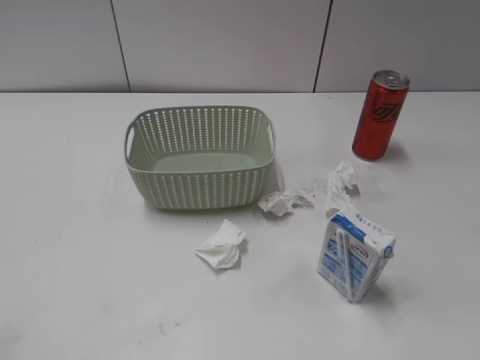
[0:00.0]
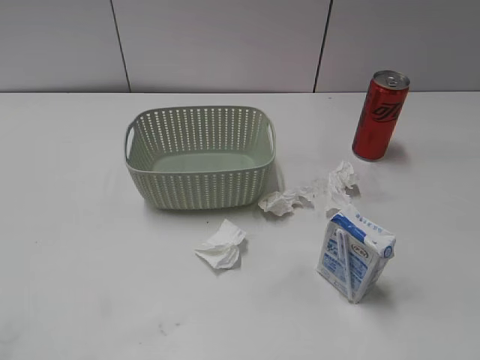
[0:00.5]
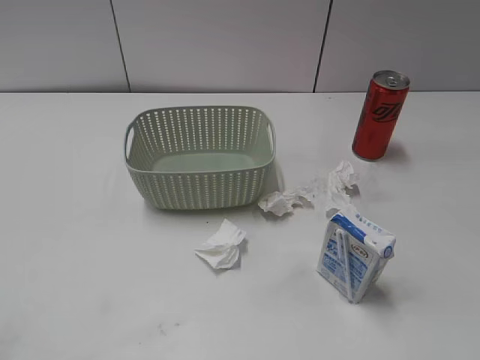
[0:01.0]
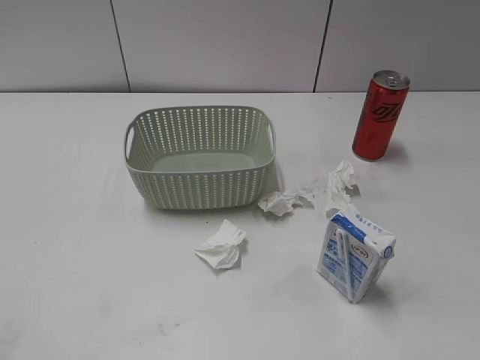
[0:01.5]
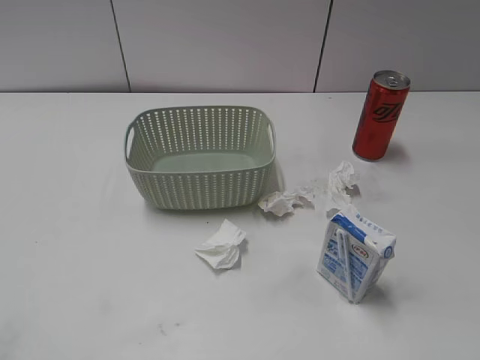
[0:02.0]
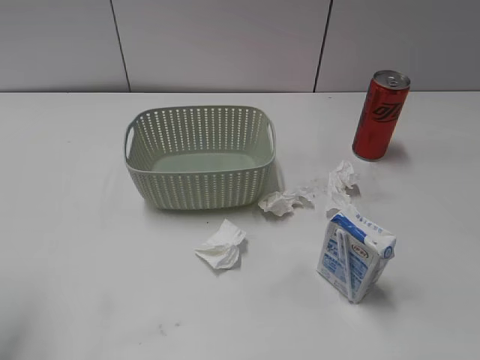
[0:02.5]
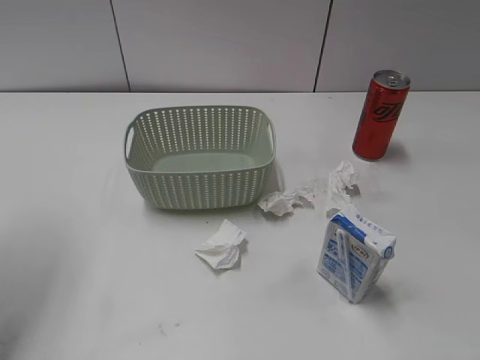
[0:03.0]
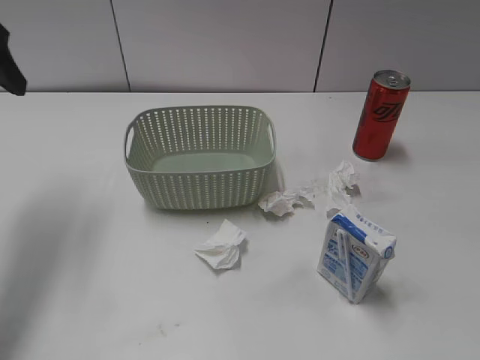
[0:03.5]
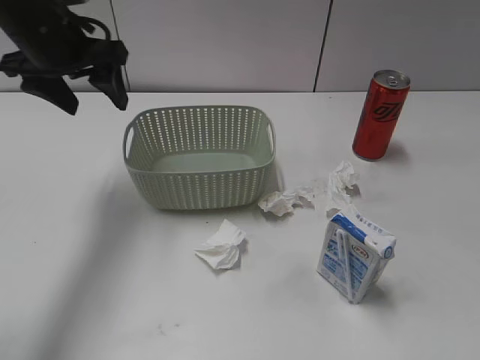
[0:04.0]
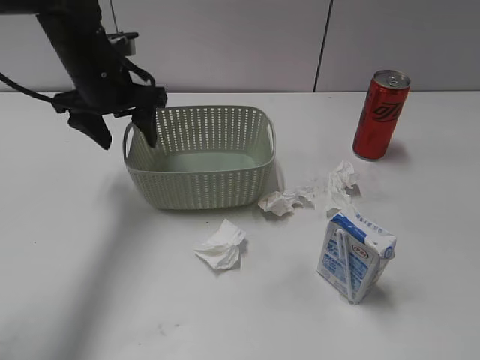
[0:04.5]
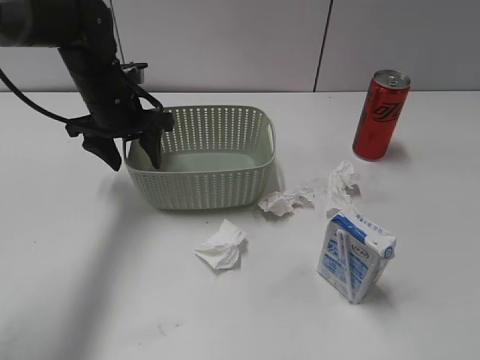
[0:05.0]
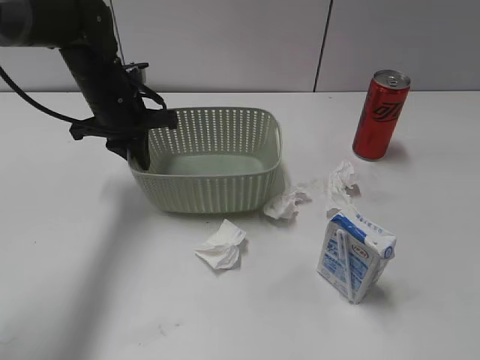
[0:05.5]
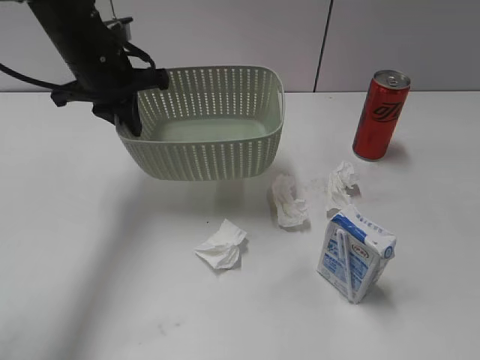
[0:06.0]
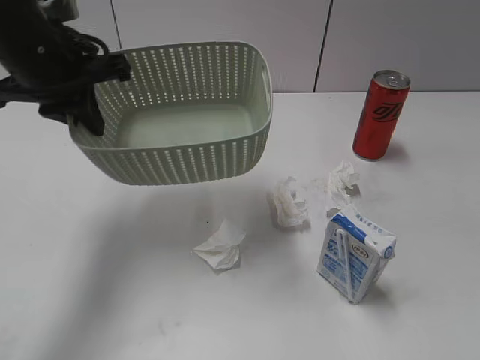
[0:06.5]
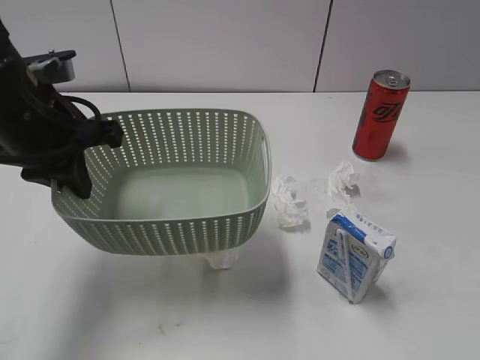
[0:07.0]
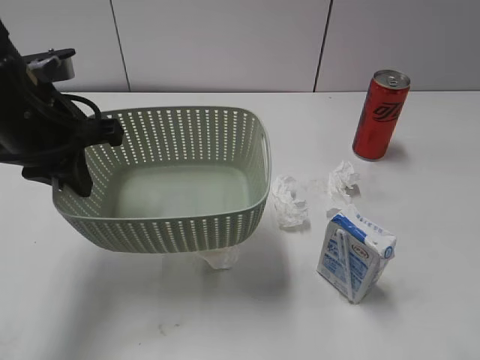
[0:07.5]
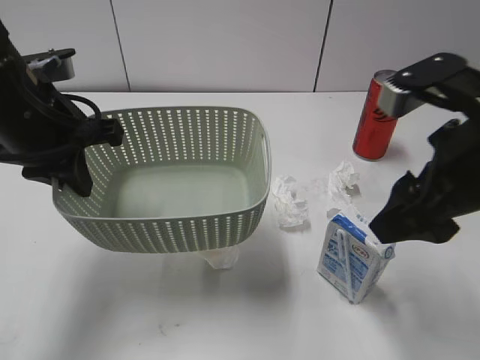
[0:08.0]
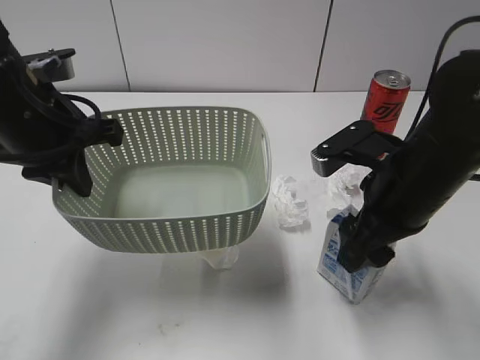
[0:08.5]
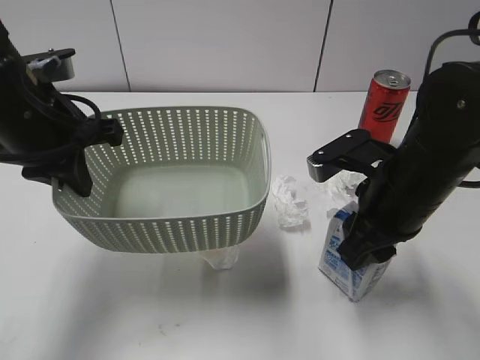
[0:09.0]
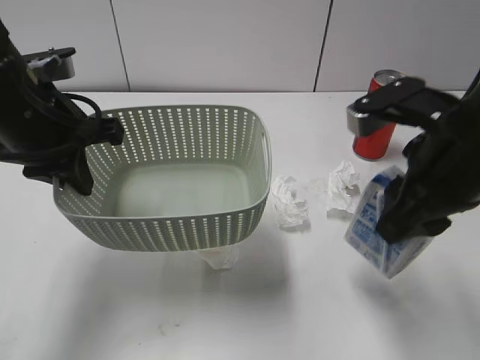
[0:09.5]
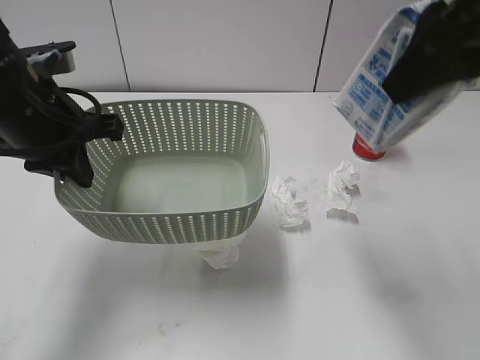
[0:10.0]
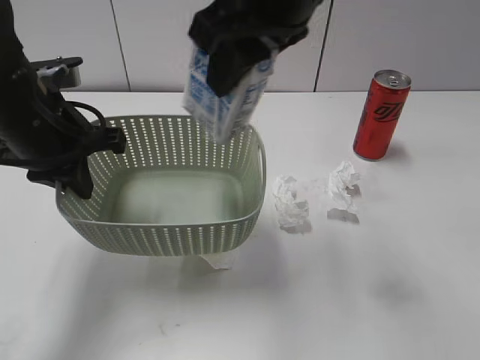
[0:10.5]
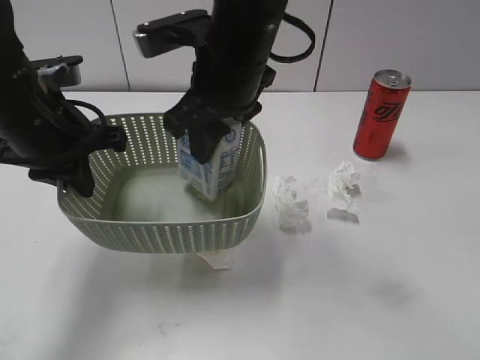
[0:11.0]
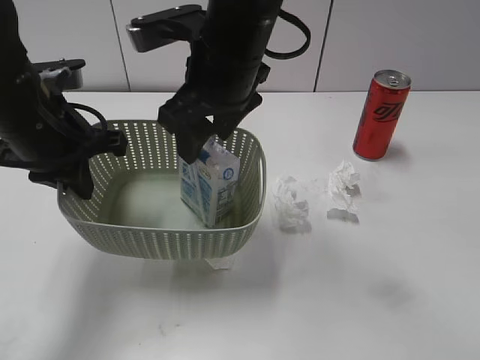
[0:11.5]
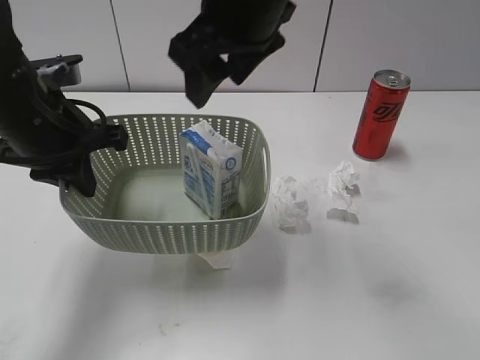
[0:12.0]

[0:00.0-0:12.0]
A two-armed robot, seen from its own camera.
Step, 0:03.5 to 0:05.0: Grasp the basket with left gripper.
Step, 0:05.5 to 0:07.0: Lift the basket with left gripper.
Step, 0:07.5 to 0:09.0: Grasp the milk with right gripper.
Step, 0:09.5 to 0:11.5: Place the milk in the basket with right gripper.
0:02.0 to 0:04.0: The left gripper travels forward by approximately 35 cm.
0:04.0 to 0:06.0: The left gripper closes.
0:06.0 to 0:08.0: The left gripper heads backward, covering some 15 cm; the right gripper heads forward and to the left, covering roughly 25 cm.
0:08.0 to 0:10.0: The right gripper shifts some 10 cm upward, and closes up.
0:10.0 to 0:12.0: The right gripper heads to the left and forward, covering some 20 cm, and opens up.

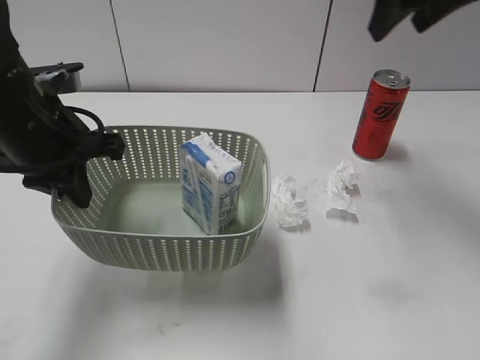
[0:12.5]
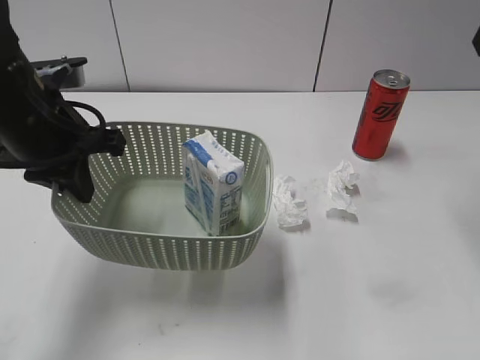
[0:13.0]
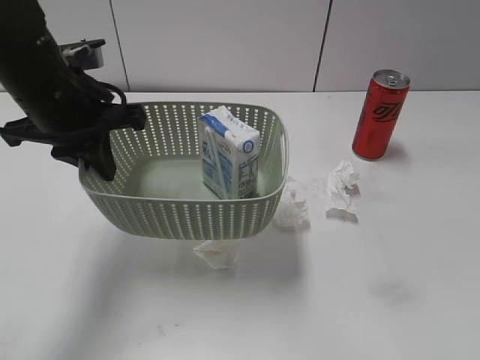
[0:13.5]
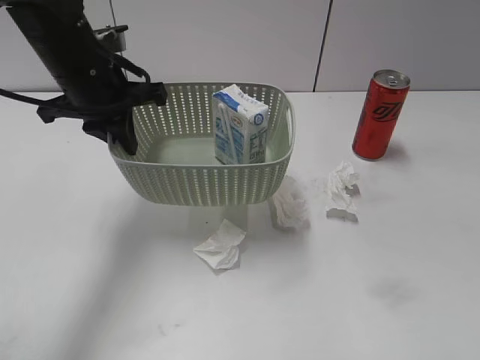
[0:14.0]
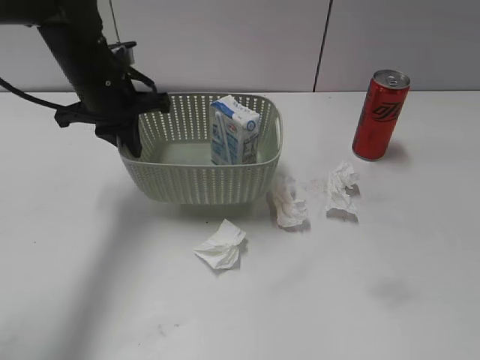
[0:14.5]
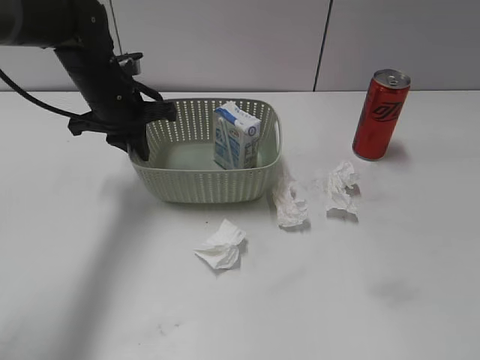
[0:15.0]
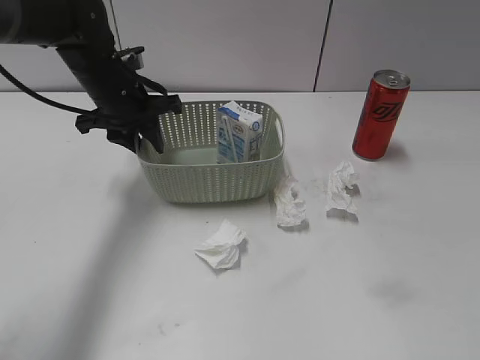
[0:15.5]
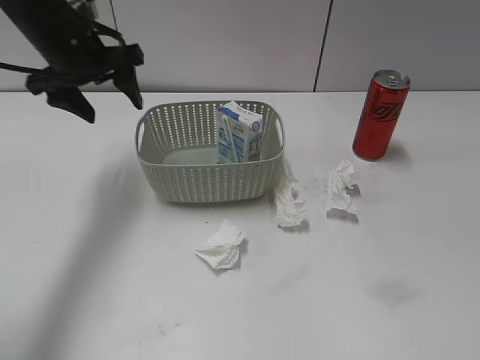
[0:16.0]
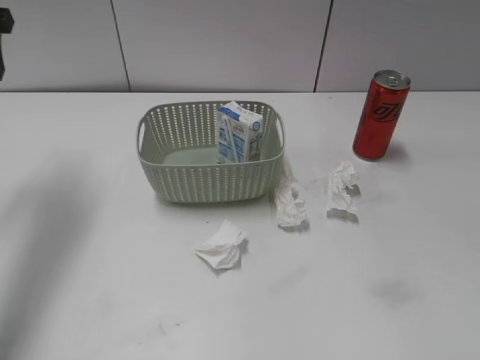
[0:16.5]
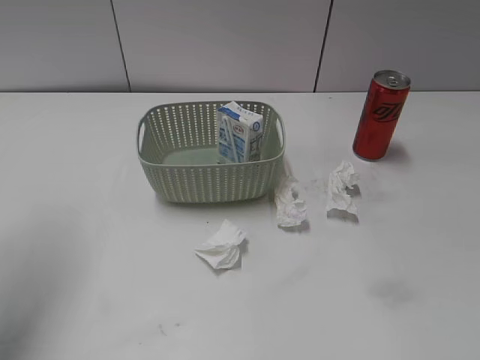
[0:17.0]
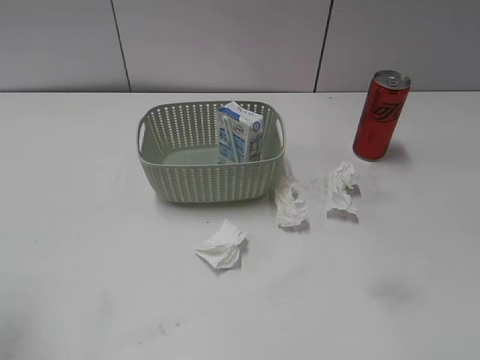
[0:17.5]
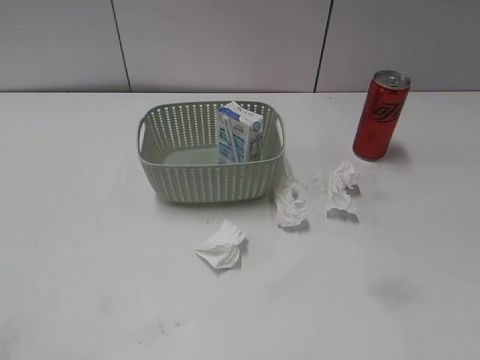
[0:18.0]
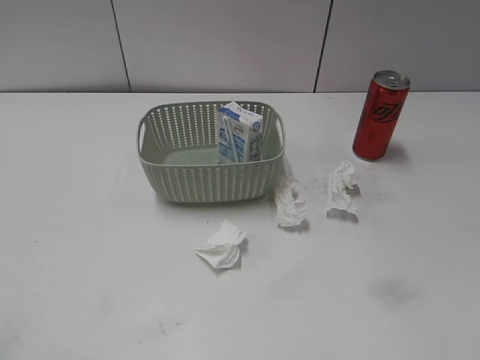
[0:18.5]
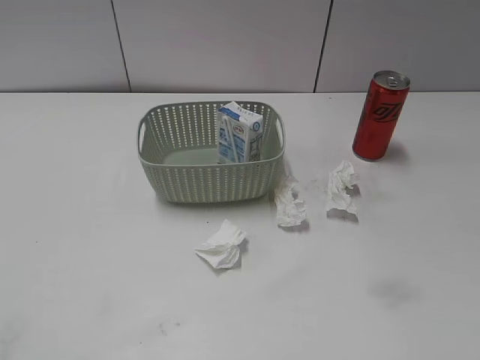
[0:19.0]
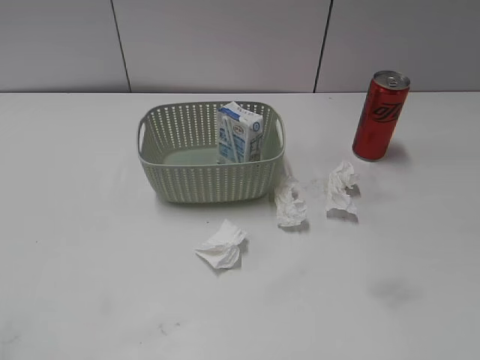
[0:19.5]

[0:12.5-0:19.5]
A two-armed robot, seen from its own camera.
Step, 0:12.5 to 0:15.5: Place the basket on the table with left gripper.
0:12.5 to 0:14.5: The left gripper goes some 10 cm forward. The right gripper shifts about 35 cm backward.
0:14.5 to 0:16.0: The left gripper travels upward by roughly 5 cm, and opens up.
0:16.0 to 0:17.5: The left gripper shifts about 30 cm backward and to the left.
